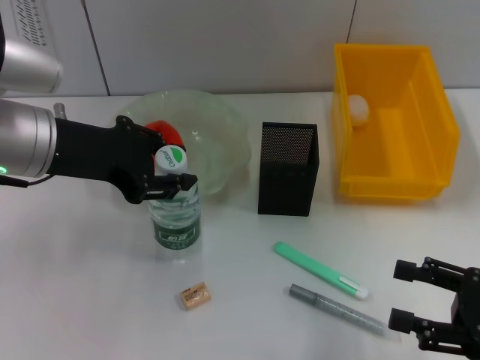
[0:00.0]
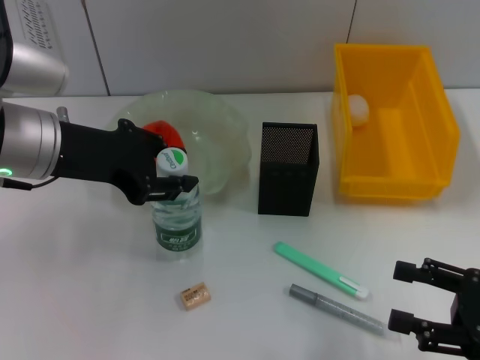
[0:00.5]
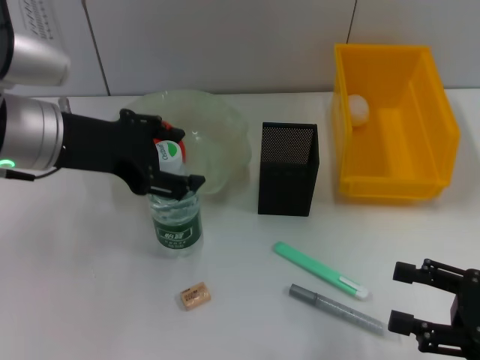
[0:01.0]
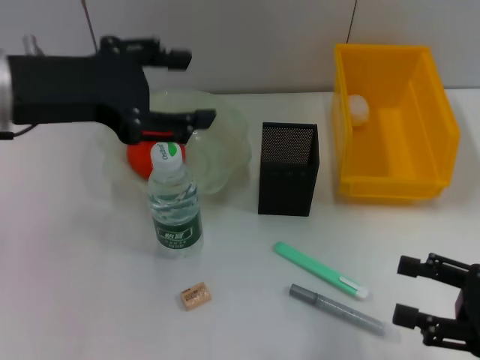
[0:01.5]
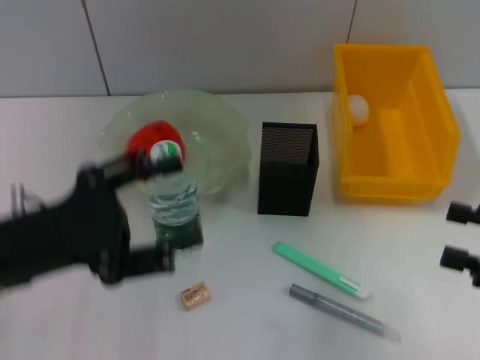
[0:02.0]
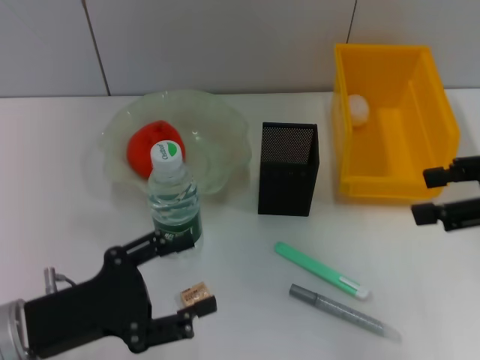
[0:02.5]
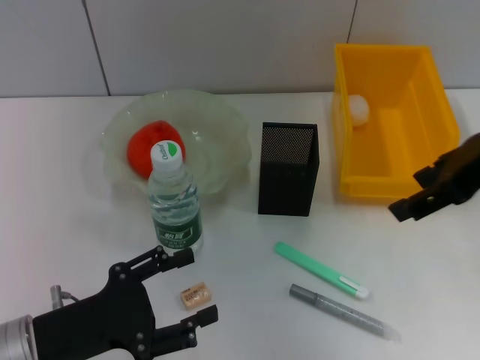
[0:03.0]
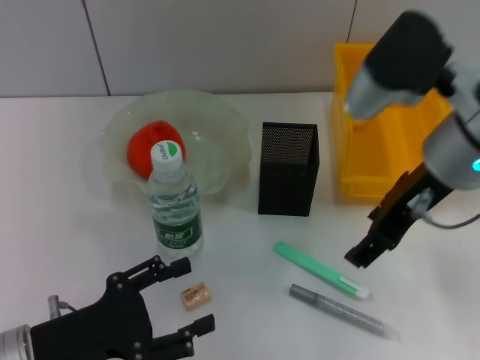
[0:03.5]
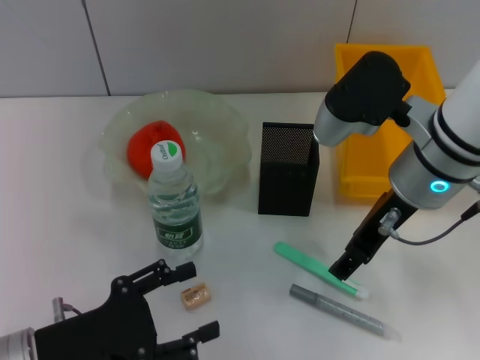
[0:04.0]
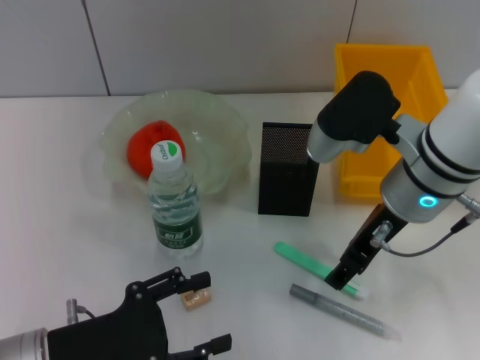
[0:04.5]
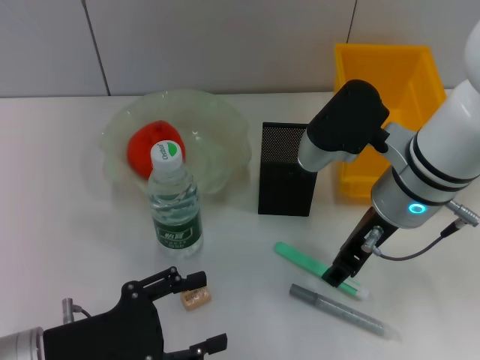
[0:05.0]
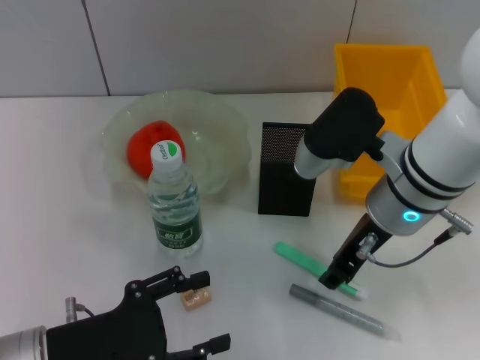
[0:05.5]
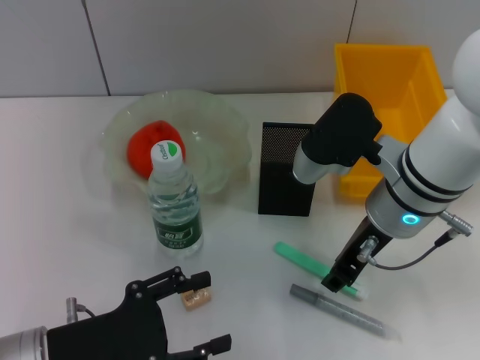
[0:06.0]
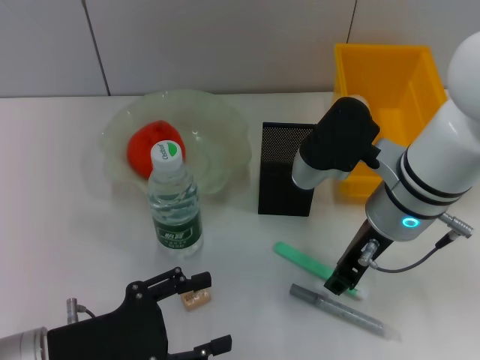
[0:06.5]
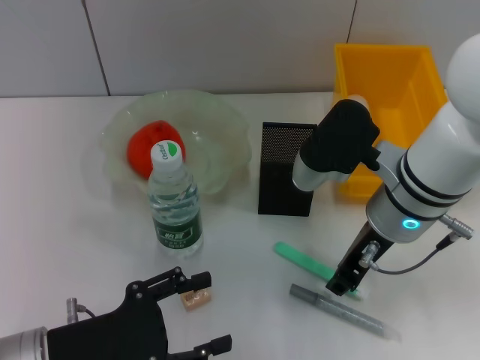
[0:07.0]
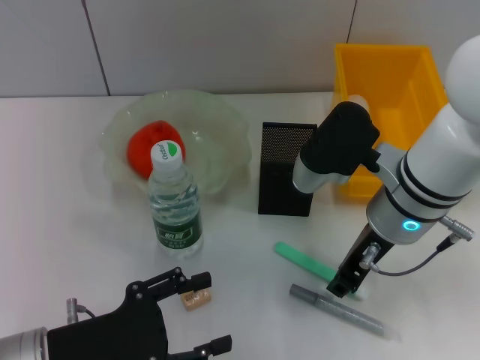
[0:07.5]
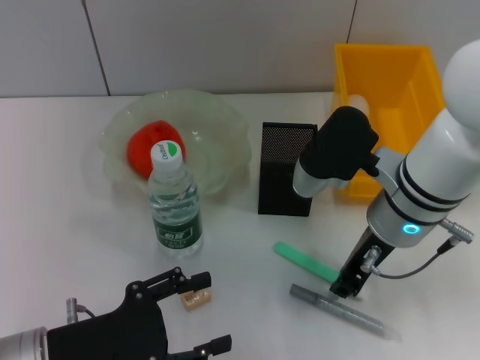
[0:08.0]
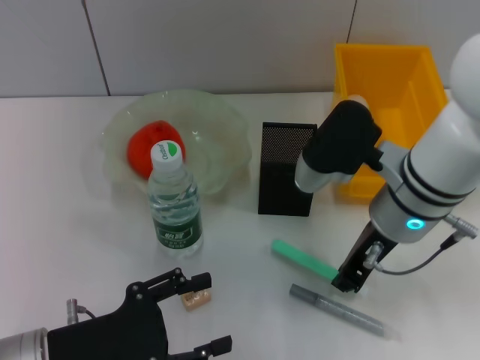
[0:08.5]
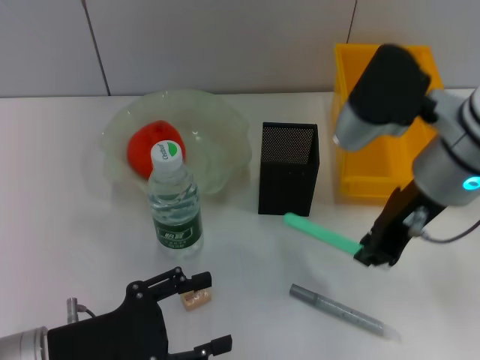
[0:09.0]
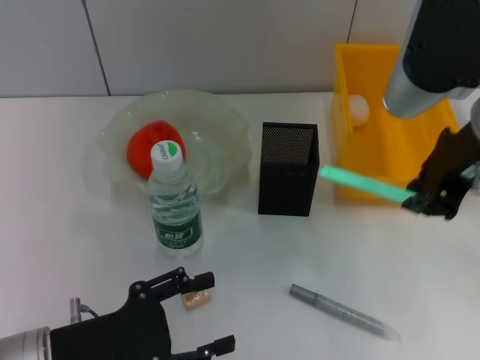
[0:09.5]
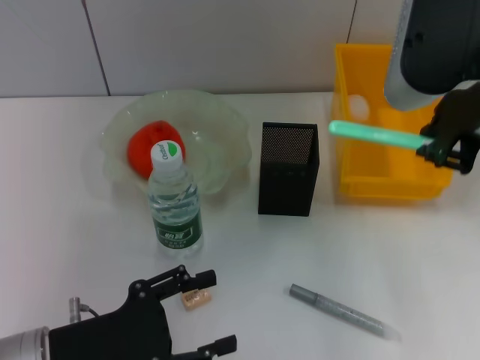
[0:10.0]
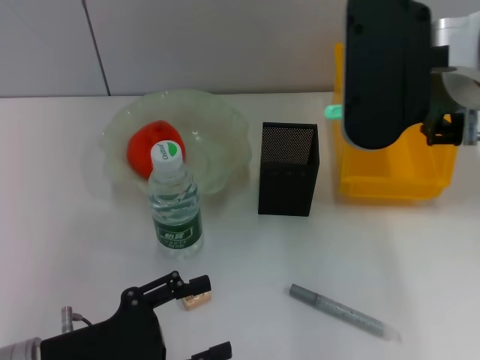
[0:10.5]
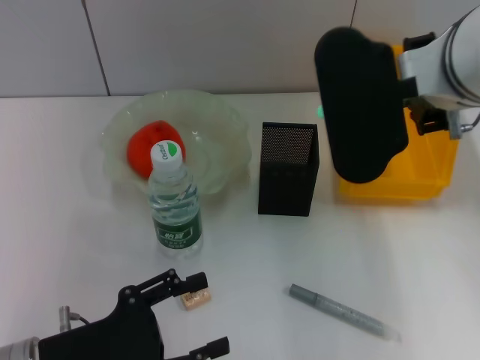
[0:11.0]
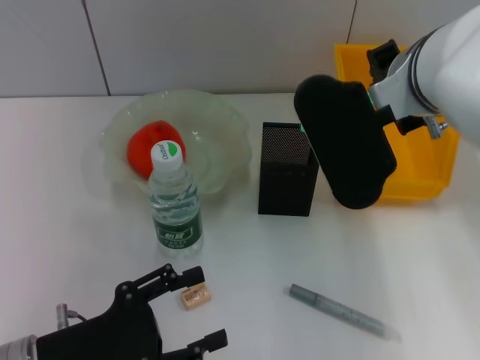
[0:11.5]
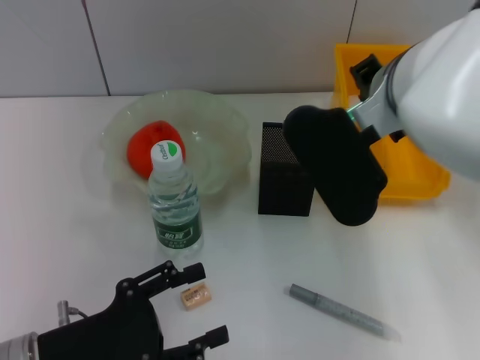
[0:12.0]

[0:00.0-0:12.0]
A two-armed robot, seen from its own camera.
Step, 0:01.0 to 0:08.0: Grab the blue utility knife with the right hand.
0:00.0 to 0:02.0: The left gripper heads backward and downward, covering roughly 10 cm, and opens its fingers, while the right gripper heads upward, covering about 5 cm.
0:02.0 to 0:04.0: The right gripper heads to the left and forward, covering approximately 25 cm, while the left gripper moves downward and backward, approximately 10 cm.
0:04.0 to 0:06.0: The right gripper closes up.
0:06.0 to 0:08.0: Both grippers stay about where they are.
0:08.0 to 0:10.0: The right gripper is displaced upward by about 15 cm.
0:10.0 to 0:12.0: The right gripper moves downward and to the left, about 10 cm.

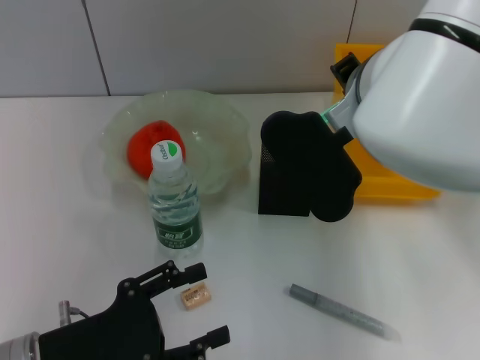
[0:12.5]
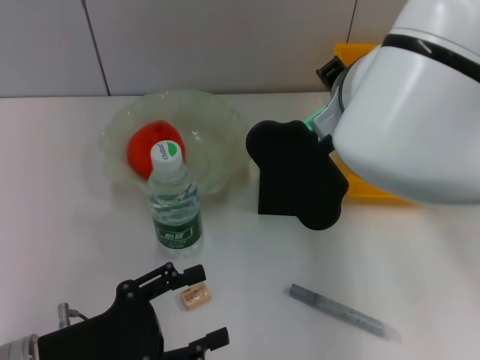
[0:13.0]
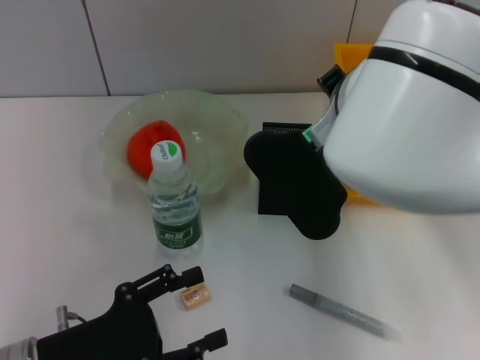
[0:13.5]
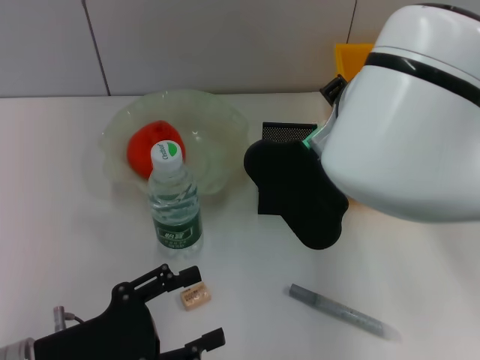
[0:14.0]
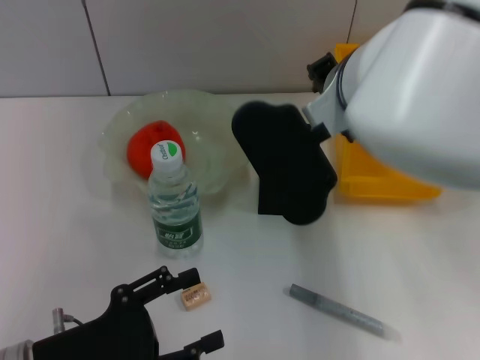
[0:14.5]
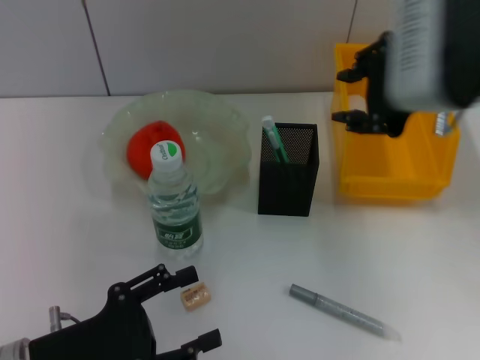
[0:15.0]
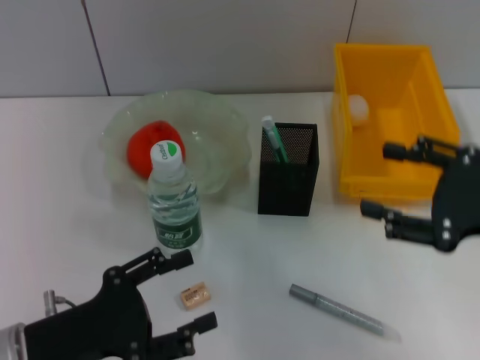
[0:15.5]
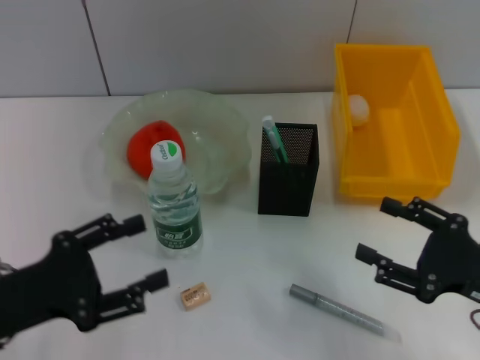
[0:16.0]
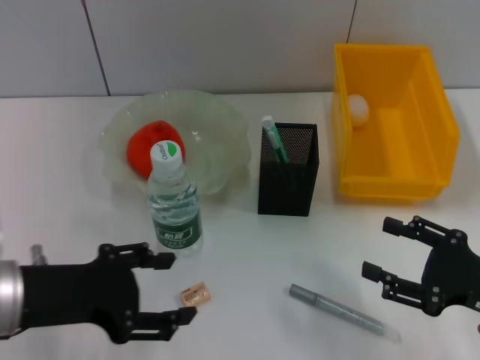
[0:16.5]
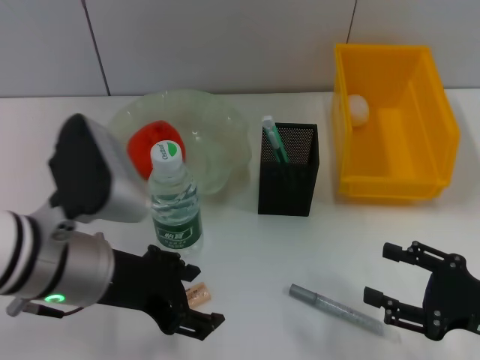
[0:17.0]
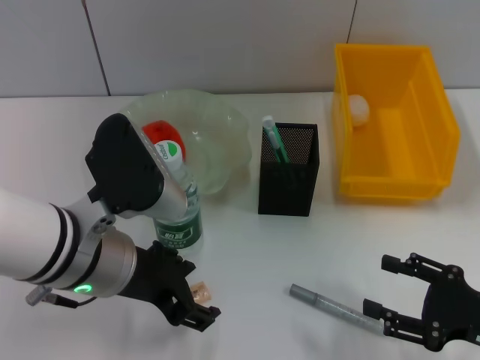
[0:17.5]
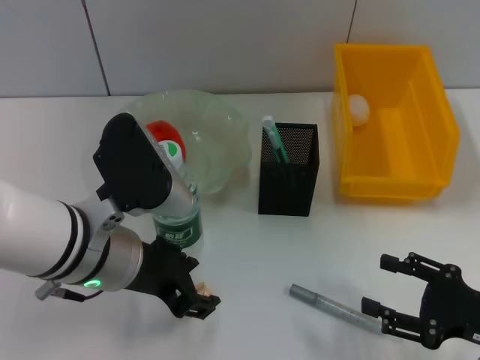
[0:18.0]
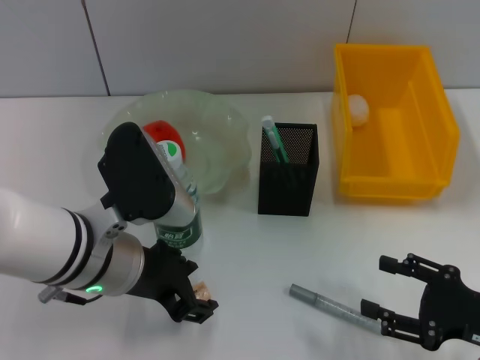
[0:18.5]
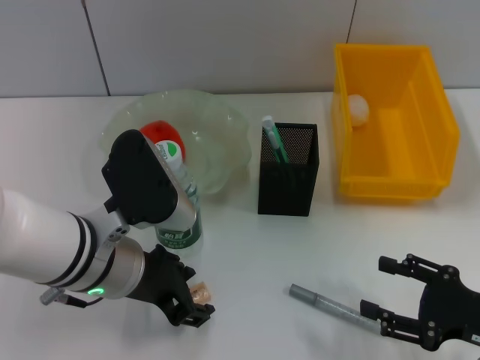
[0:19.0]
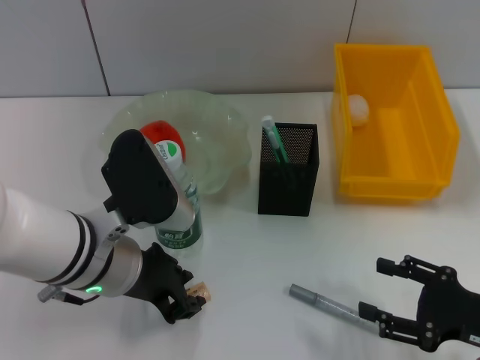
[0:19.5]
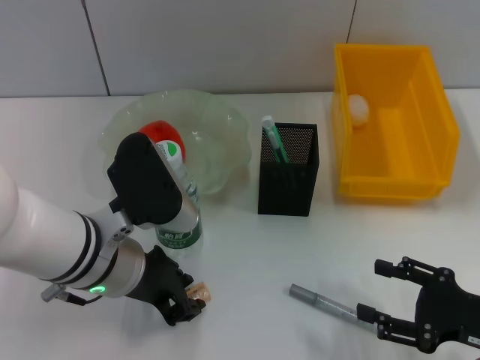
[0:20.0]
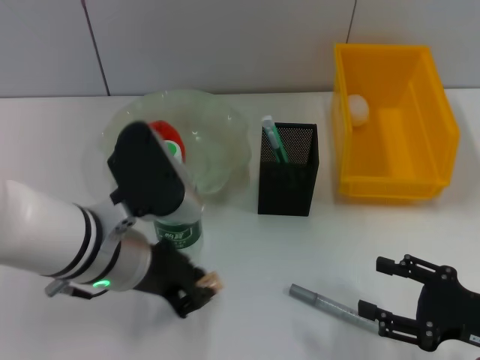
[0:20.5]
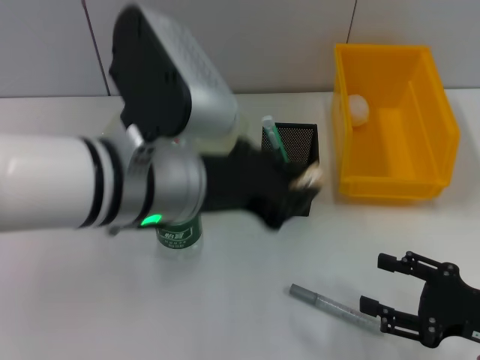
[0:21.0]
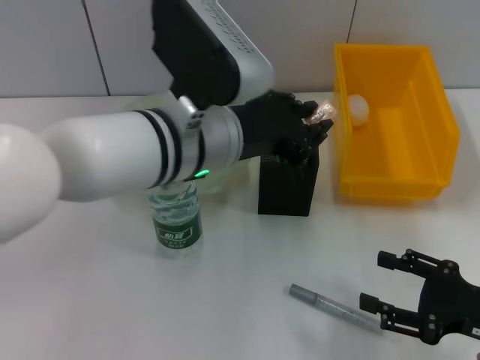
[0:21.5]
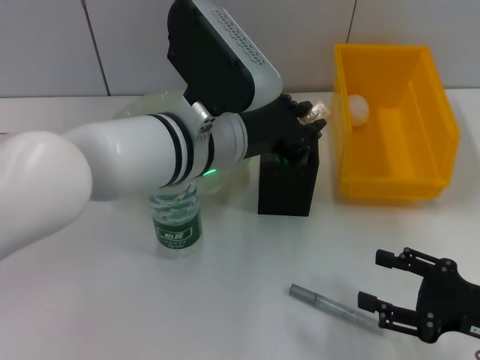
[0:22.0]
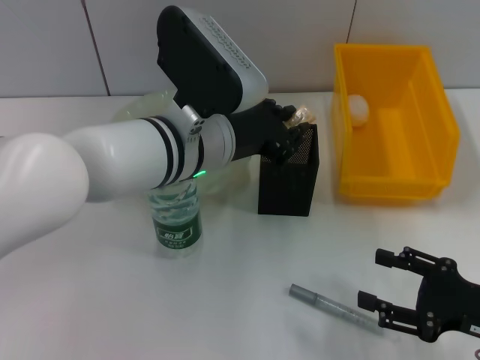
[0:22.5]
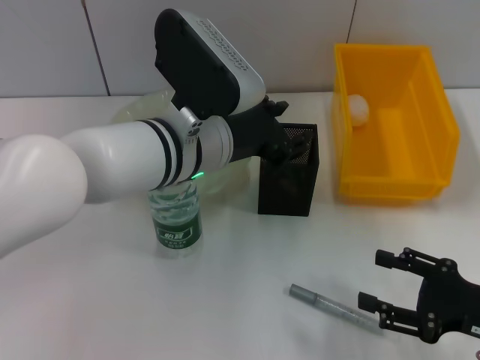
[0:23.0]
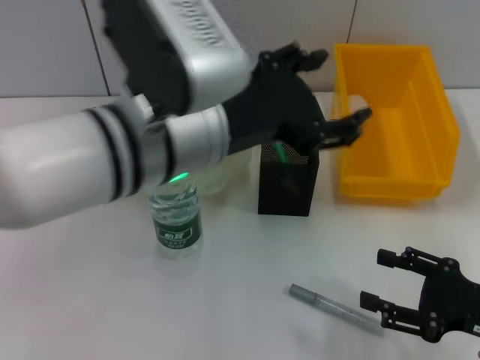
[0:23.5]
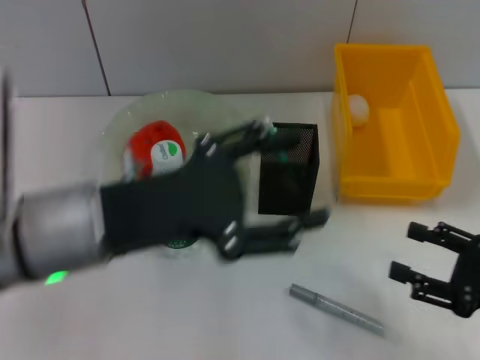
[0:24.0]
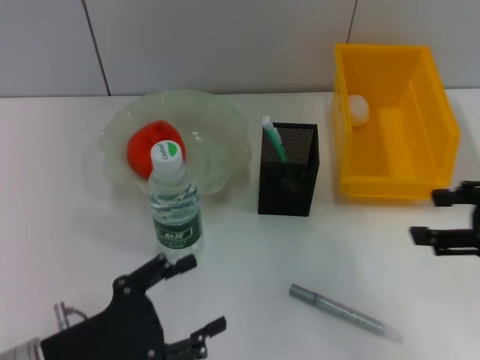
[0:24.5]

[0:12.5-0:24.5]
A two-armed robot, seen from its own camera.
Step, 0:14.5 to 0:20.0: Grab the eraser with the left hand.
Step, 0:20.5 to 0:22.5: Place the eraser into the pen holder with the left hand.
0:12.5 to 0:14.5: The right gripper opens.
0:14.5 to 0:16.5: The left gripper heads upward, covering roughly 10 cm. Meanwhile the right gripper shifts approximately 30 cm to the right, downward and backward, and opens its fingers.
0:16.5 to 0:18.5: The left gripper moves to the right and forward, approximately 10 cm.
0:18.5 to 0:20.5: The left gripper closes its fingers.
0:20.5 to 0:22.5: The left gripper goes about 10 cm forward and to the right.
0:22.5 to 0:24.5: The left gripper moves backward, to the left and downward, about 25 cm, and opens; the right gripper shifts approximately 15 cm upward.

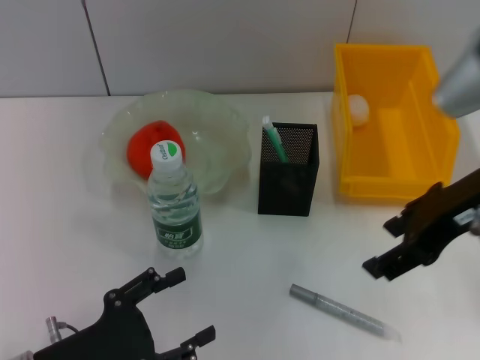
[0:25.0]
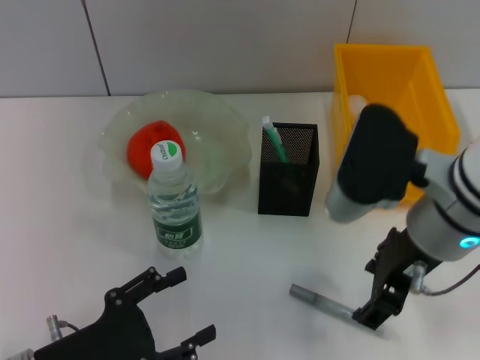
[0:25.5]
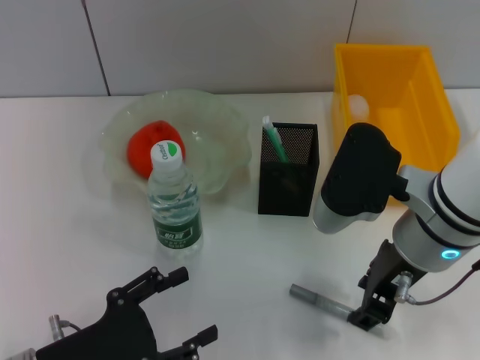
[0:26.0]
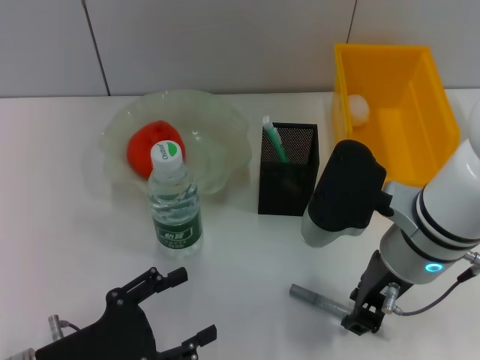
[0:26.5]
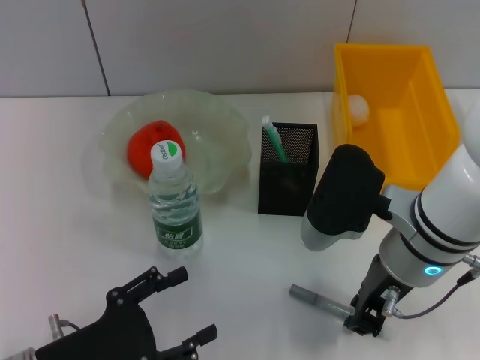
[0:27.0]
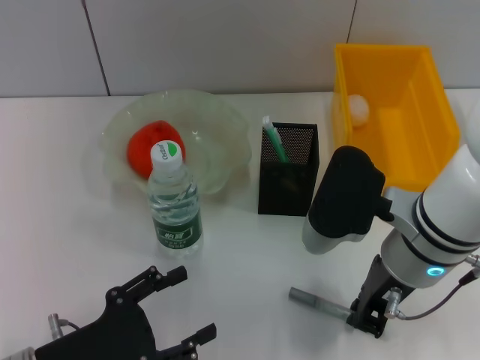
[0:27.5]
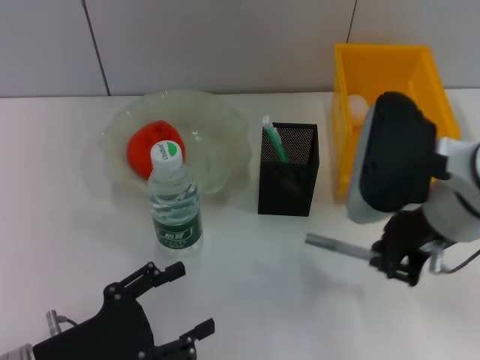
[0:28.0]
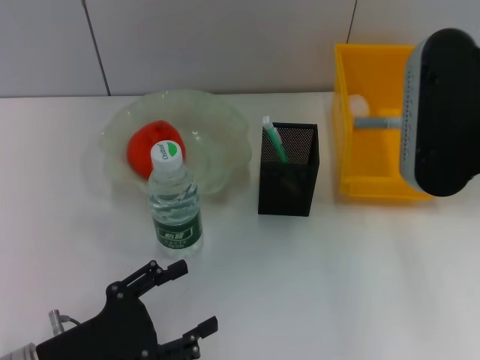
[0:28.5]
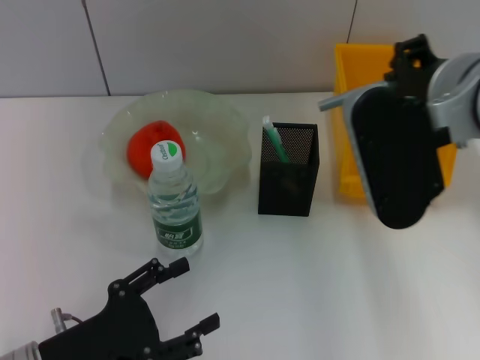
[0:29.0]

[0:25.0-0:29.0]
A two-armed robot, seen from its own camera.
Step, 0:25.0 to 0:27.0: Grab the gray glue with the right hand.
0:25.0 to 0:27.0: The right gripper is displaced downward and to the left by approximately 10 cm, and closes.
0:27.0 to 0:29.0: The right gripper goes approximately 10 cm upward.
